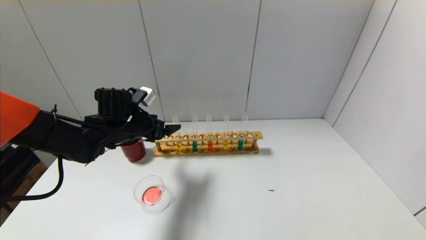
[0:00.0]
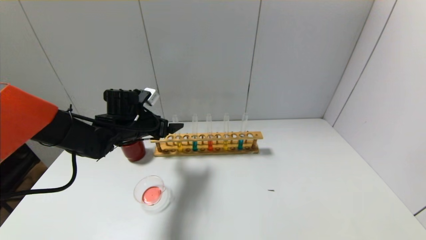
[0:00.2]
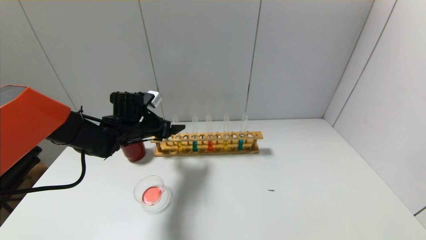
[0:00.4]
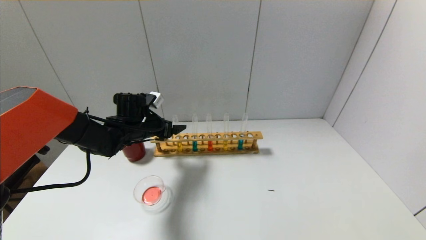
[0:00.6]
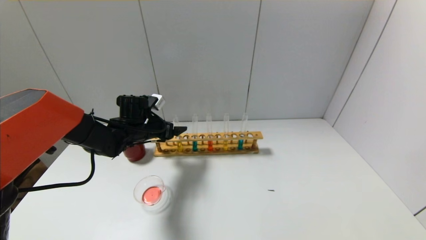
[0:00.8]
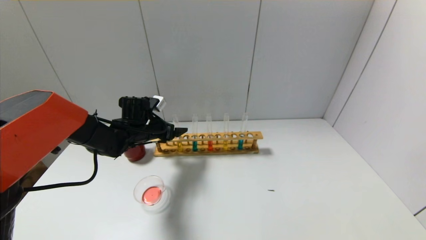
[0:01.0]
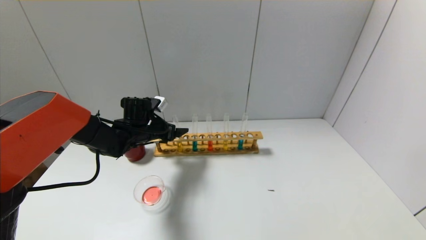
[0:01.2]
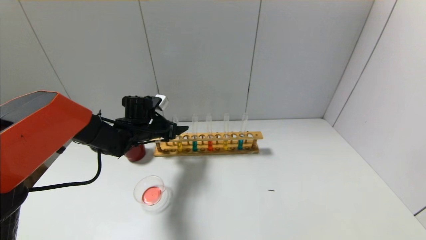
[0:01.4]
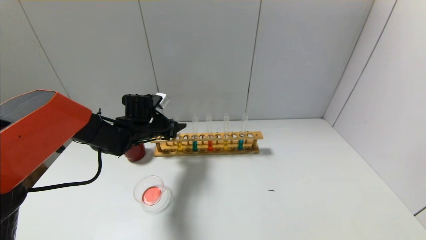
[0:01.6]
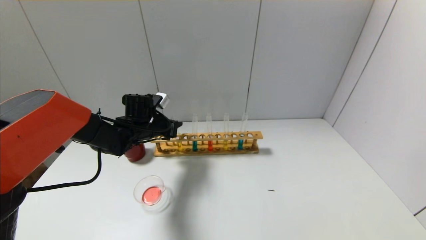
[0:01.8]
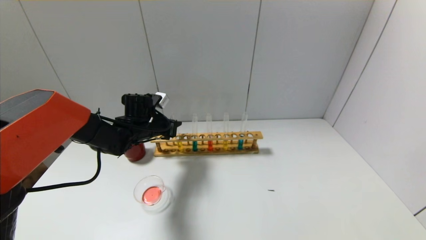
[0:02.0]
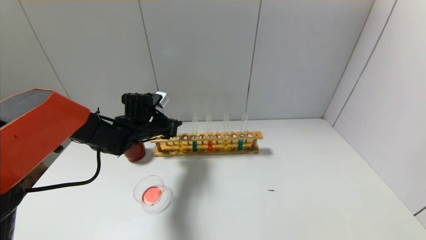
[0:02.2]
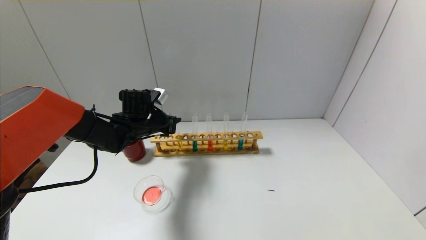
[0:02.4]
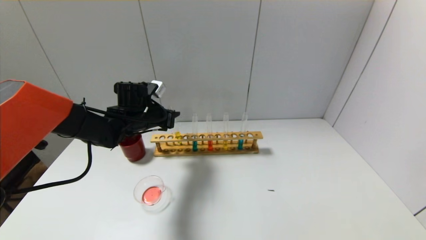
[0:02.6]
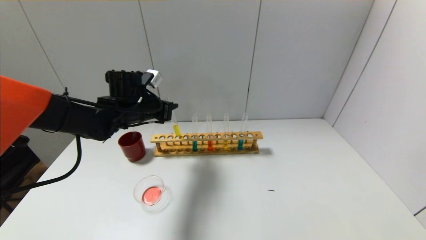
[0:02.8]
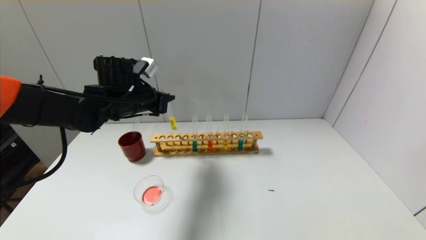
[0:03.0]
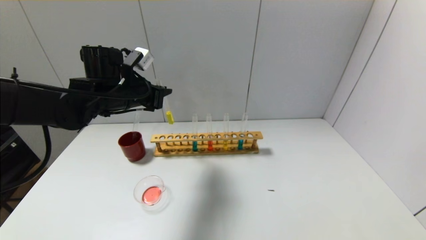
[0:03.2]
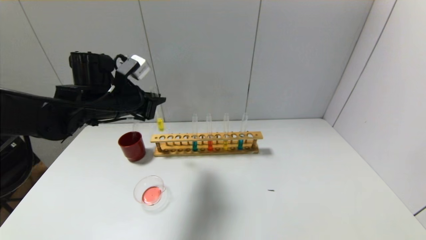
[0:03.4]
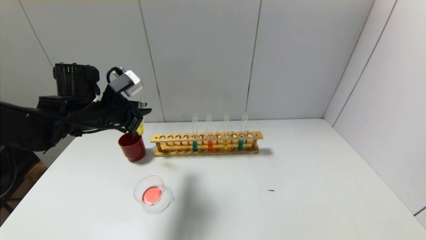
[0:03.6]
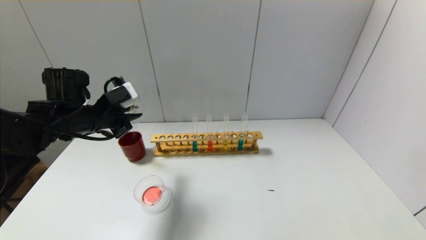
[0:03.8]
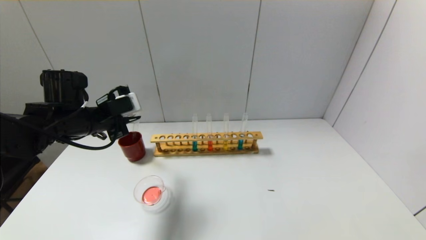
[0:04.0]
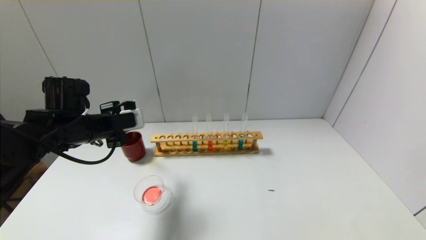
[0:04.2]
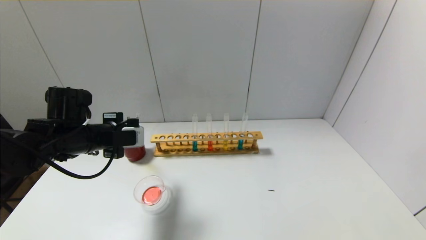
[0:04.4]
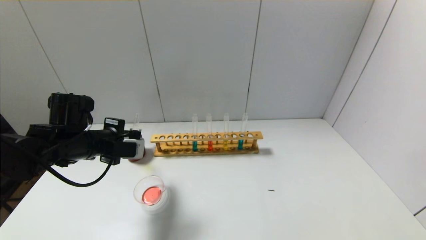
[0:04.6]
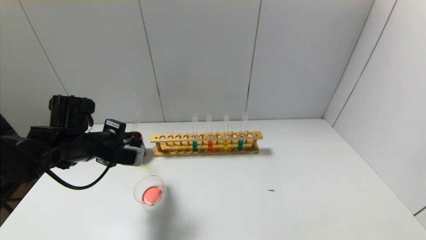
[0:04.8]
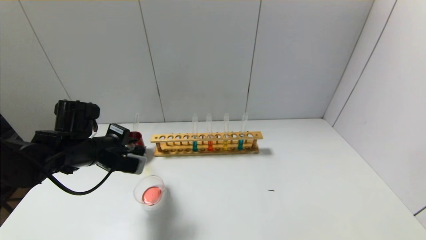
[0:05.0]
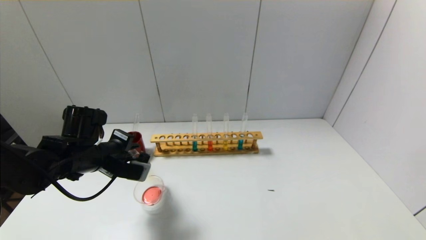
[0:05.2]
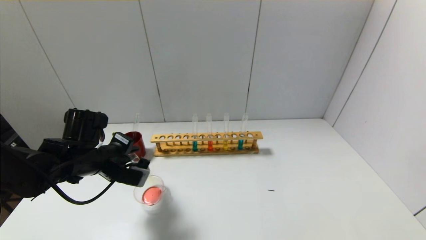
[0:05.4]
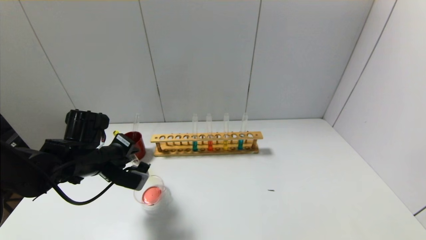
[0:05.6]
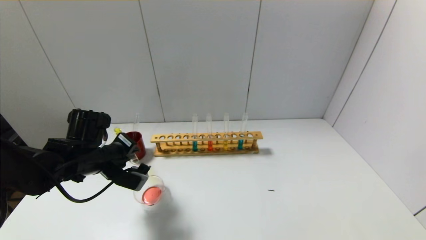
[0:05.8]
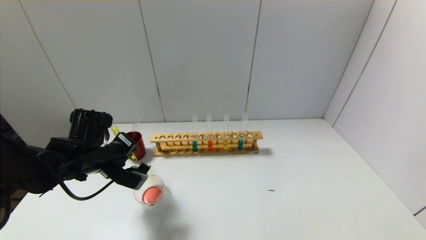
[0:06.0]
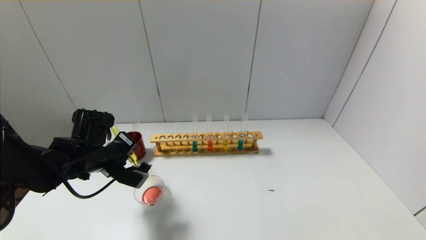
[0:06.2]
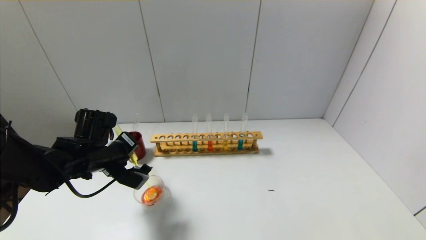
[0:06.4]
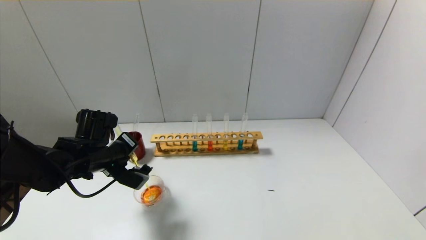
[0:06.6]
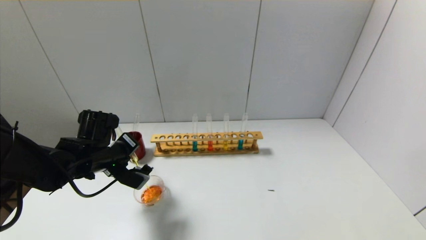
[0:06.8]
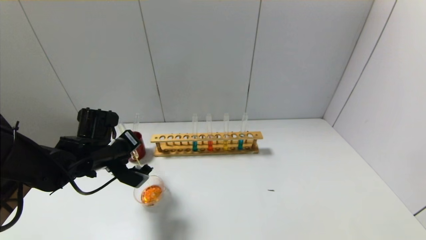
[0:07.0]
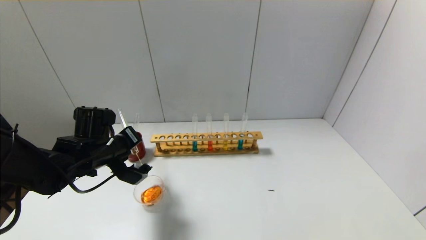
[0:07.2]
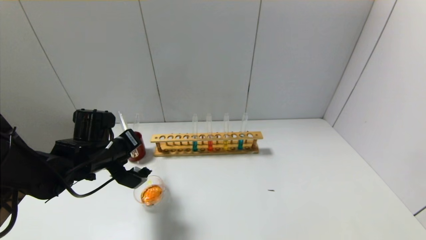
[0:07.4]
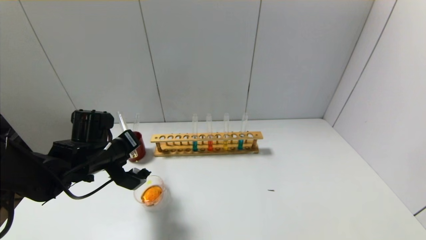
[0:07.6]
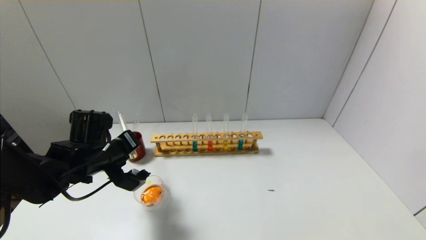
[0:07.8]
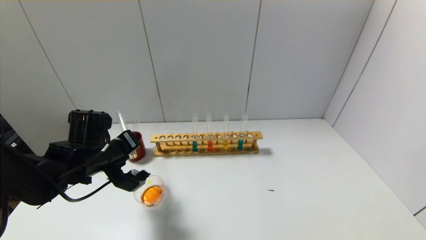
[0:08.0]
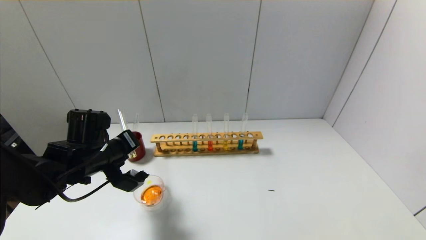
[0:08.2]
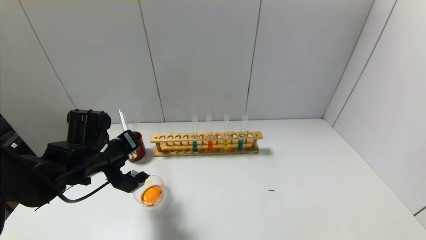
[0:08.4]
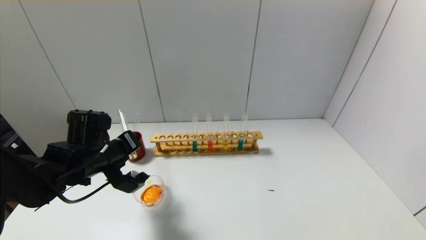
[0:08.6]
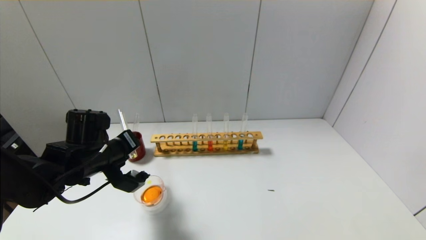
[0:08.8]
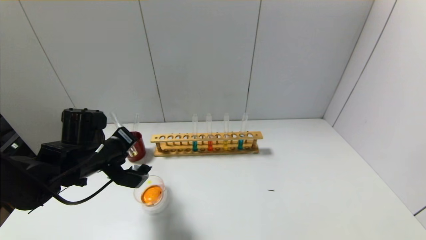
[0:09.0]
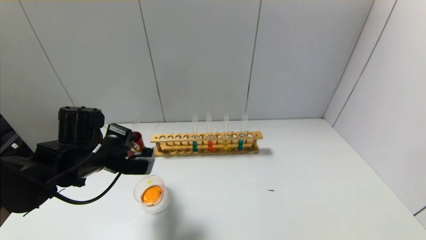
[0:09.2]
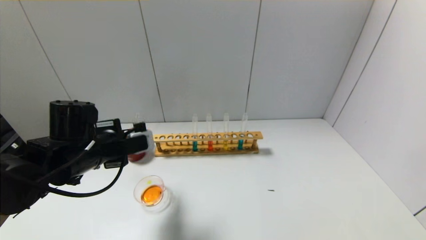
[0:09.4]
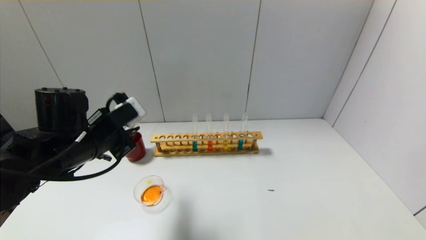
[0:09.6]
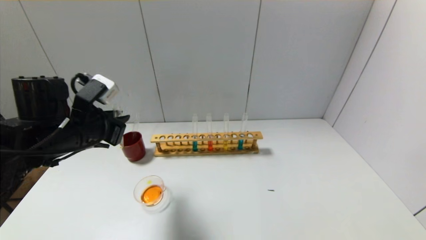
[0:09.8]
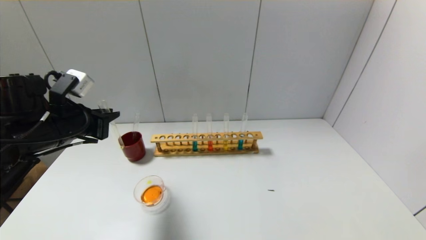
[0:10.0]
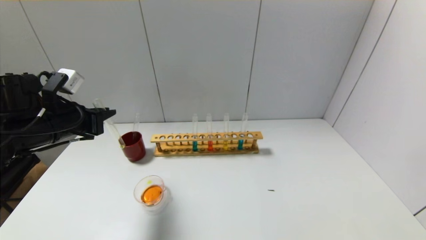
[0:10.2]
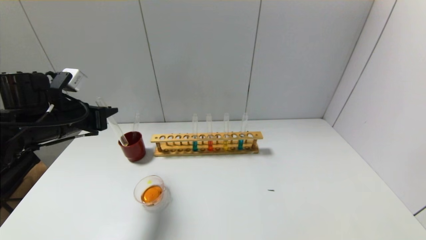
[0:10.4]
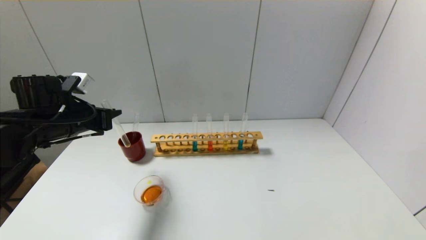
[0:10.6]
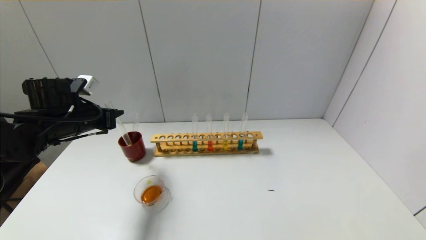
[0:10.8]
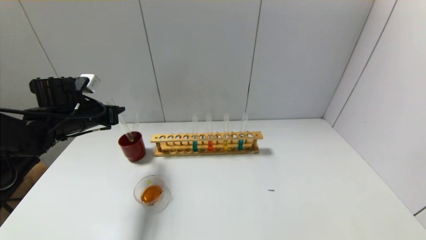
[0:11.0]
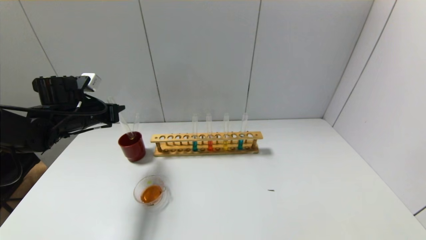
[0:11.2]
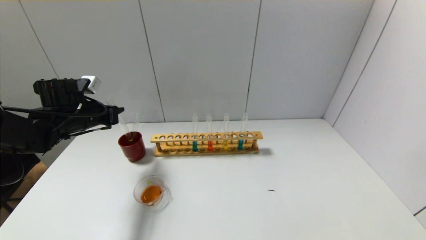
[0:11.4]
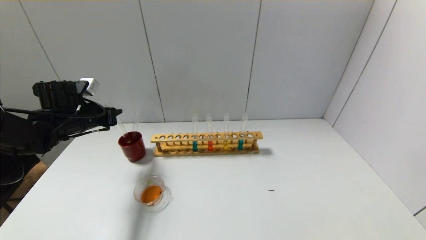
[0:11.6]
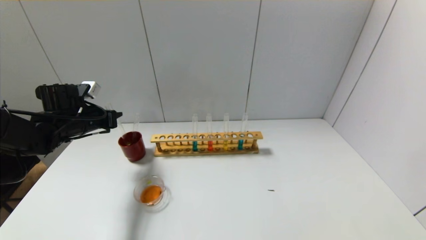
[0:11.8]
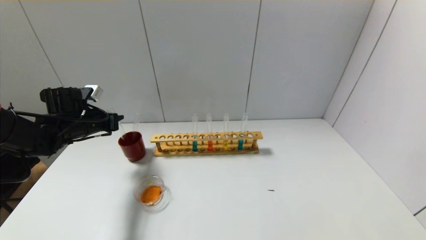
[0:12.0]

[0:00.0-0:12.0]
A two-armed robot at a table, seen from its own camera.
Step, 0:02.0 to 0:09.4: Pour the yellow reagent into the graduated cylinder with the left gripper.
0:00.0 to 0:01.6: The left gripper changes place by about 5 cm, and closes its fingers.
0:01.6 to 0:03.0: The left gripper shifts roughly 10 cm upward, and closes up.
0:03.0 to 0:04.4: The left gripper moves backward, to the left and downward, roughly 10 cm.
0:06.0 to 0:07.6: There are only small adjustments of the grippers.
0:07.6 to 0:09.0: There are only small adjustments of the grippers.
0:09.0 to 0:10.4: The left gripper moves to the left and upward, some 10 cm.
0:10.4 to 0:12.0: The left gripper heads forward and downward, covering some 10 cm.

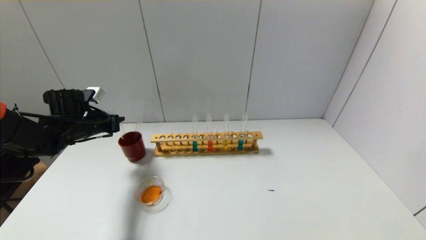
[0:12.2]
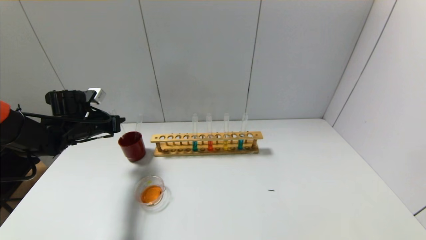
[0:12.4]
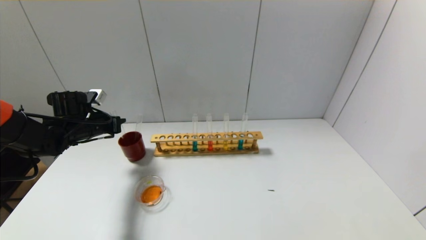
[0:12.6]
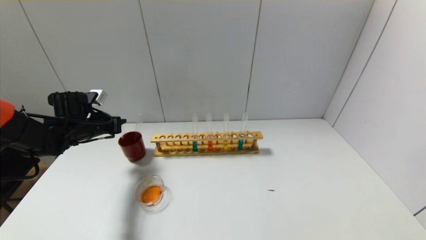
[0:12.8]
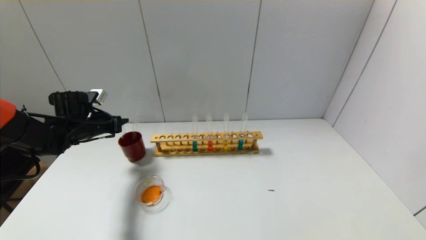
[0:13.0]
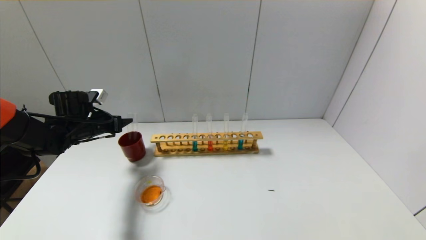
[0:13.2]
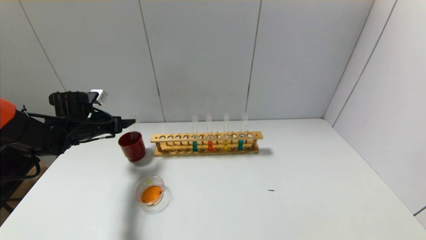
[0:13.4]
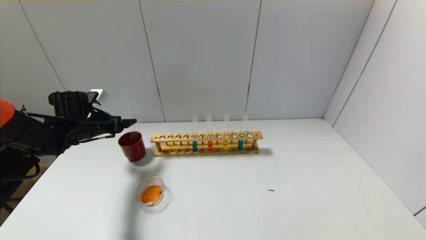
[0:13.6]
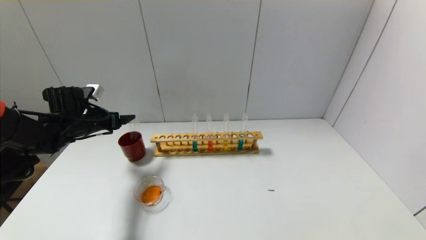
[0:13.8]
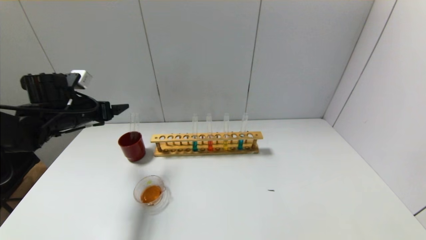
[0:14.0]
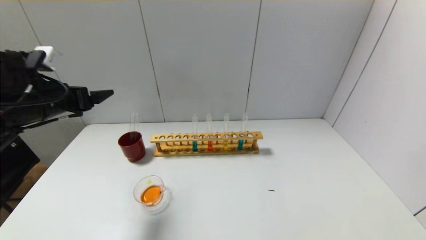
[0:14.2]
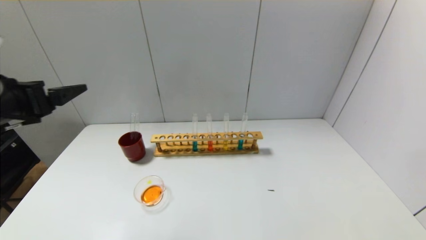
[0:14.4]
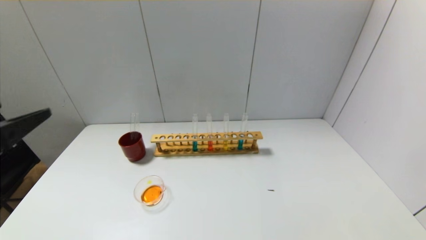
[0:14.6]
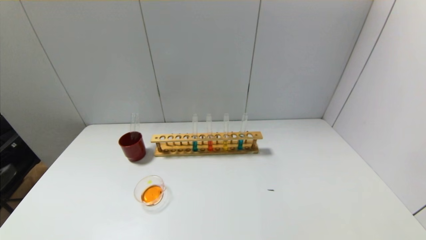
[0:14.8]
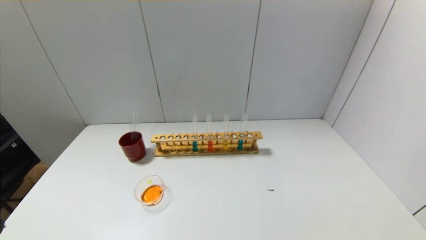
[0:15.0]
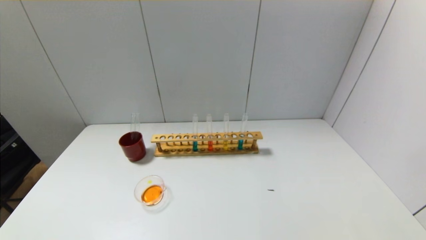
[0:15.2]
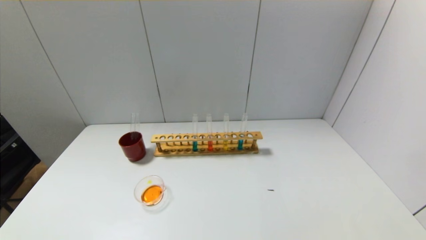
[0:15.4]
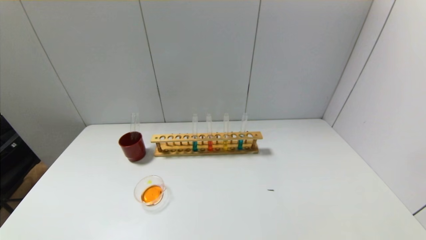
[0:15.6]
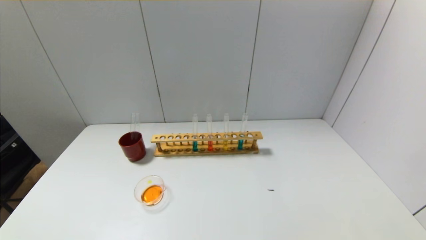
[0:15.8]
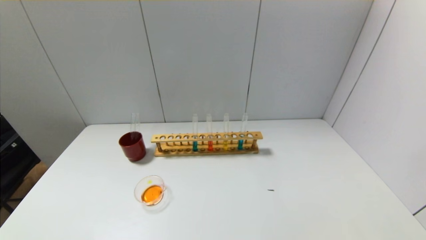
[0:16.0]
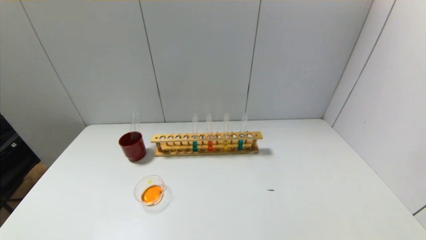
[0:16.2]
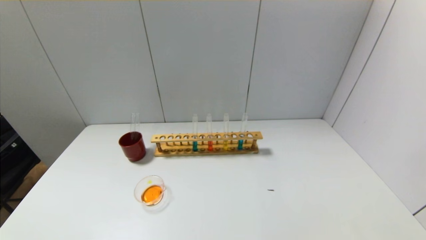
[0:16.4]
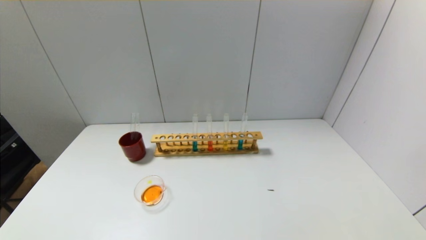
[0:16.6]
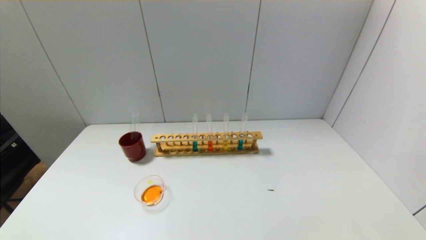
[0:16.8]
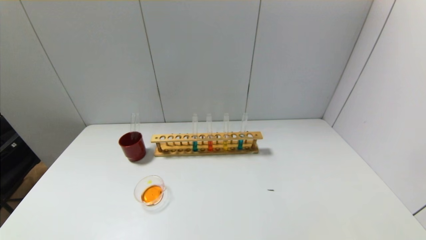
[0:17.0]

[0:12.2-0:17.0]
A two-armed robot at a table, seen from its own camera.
0:12.2 to 0:13.8: The left gripper opens.
0:13.8 to 0:15.4: The left gripper shifts roughly 40 cm backward.
